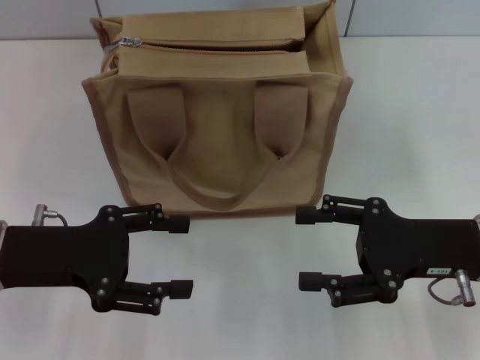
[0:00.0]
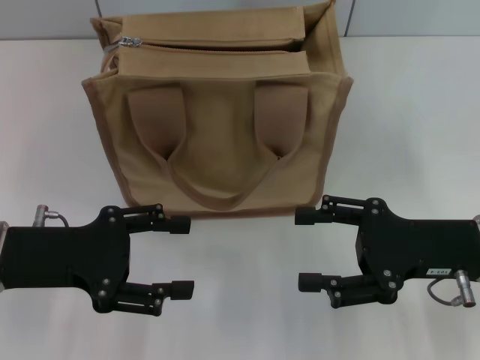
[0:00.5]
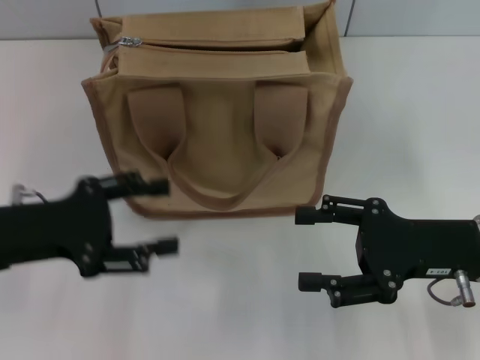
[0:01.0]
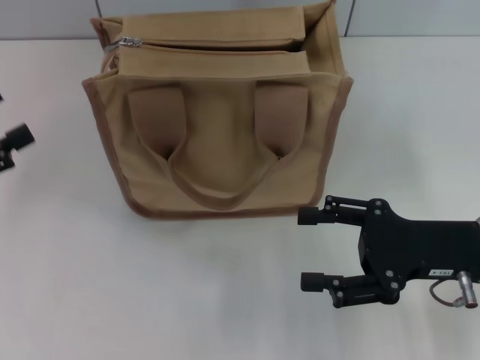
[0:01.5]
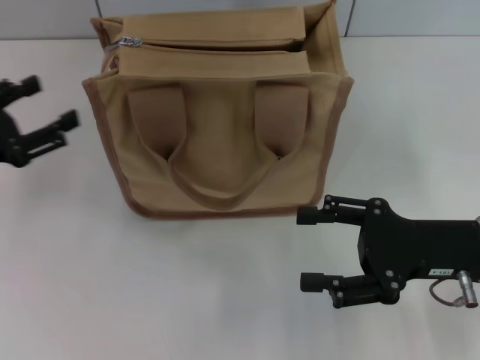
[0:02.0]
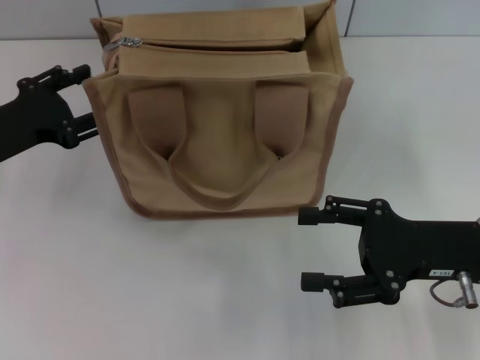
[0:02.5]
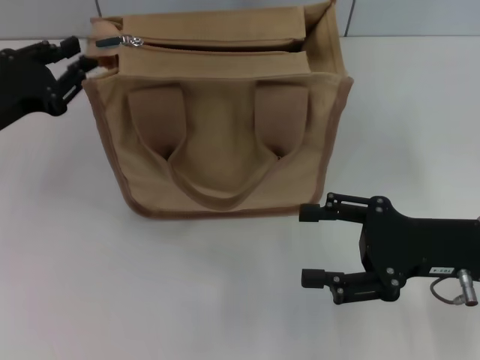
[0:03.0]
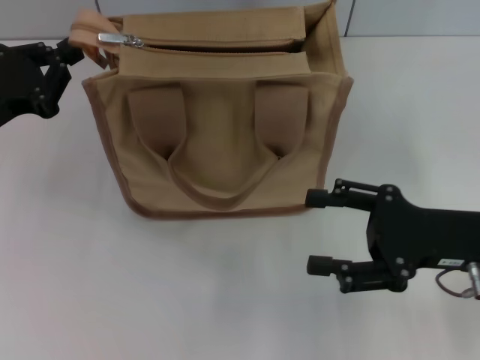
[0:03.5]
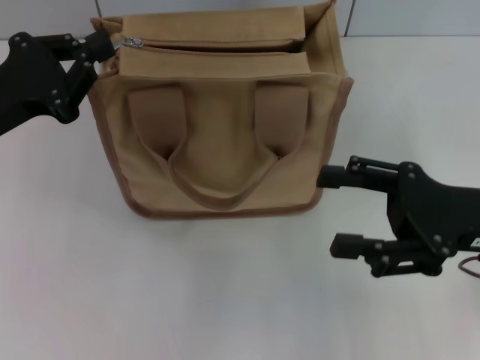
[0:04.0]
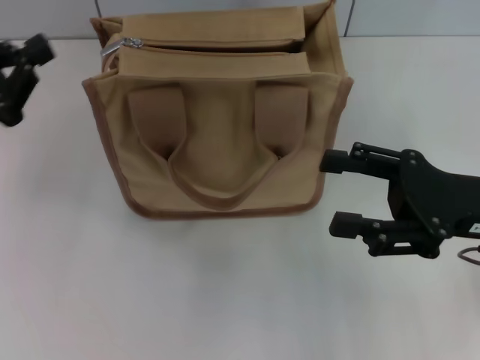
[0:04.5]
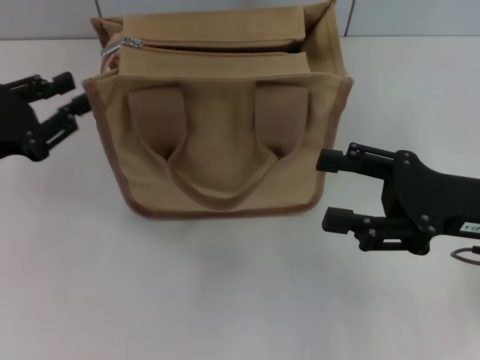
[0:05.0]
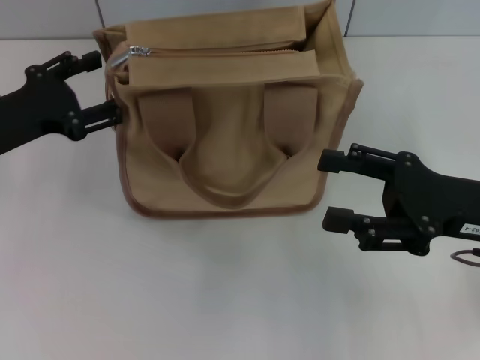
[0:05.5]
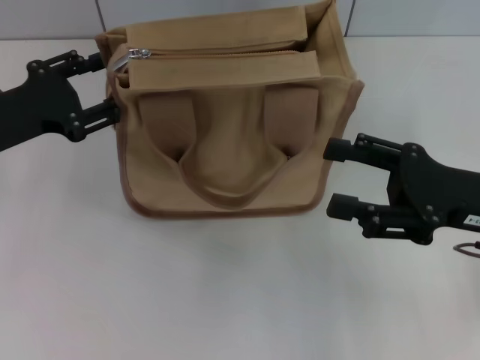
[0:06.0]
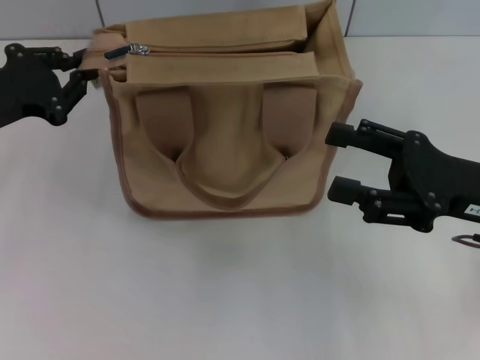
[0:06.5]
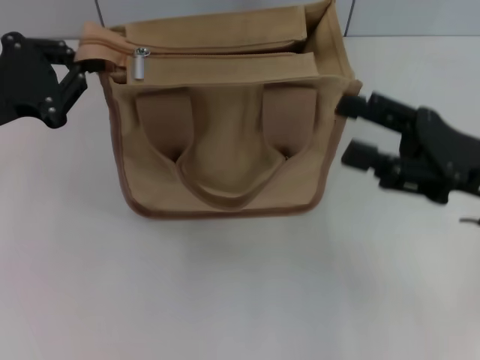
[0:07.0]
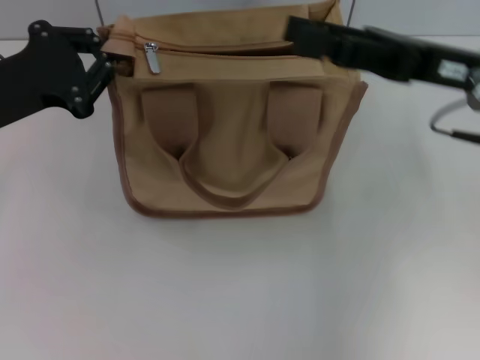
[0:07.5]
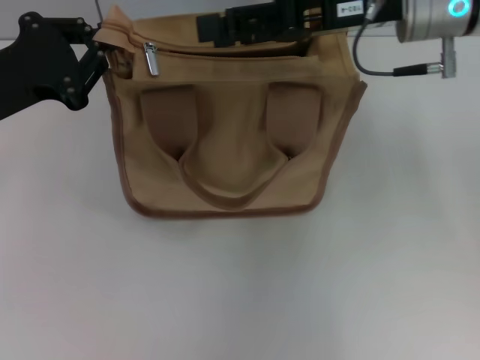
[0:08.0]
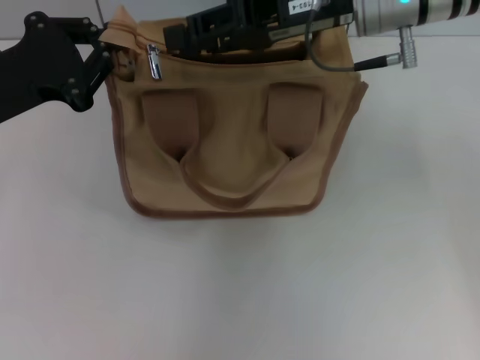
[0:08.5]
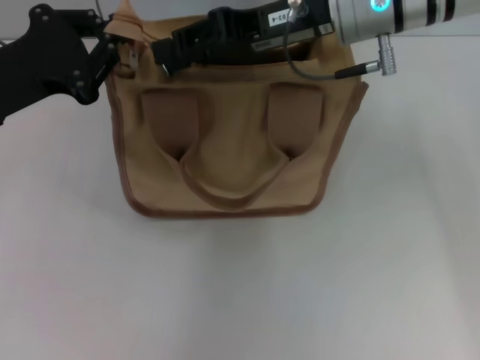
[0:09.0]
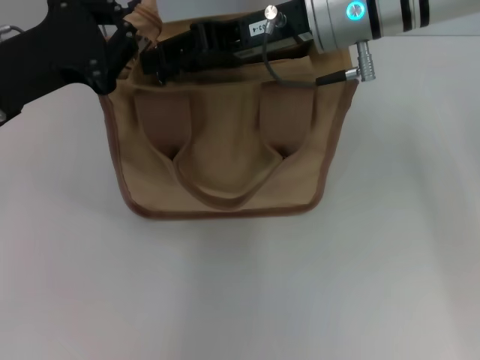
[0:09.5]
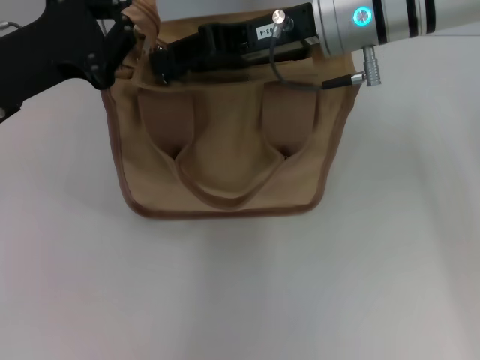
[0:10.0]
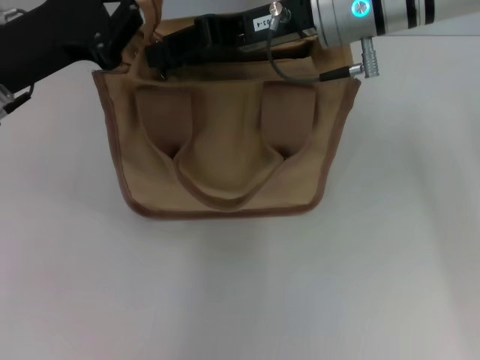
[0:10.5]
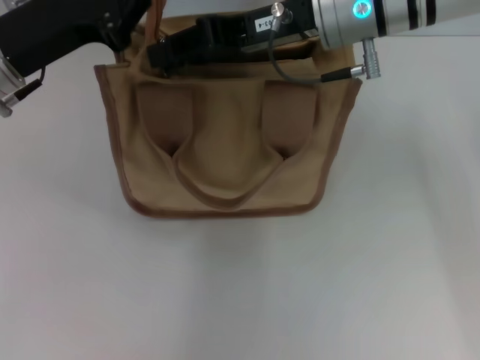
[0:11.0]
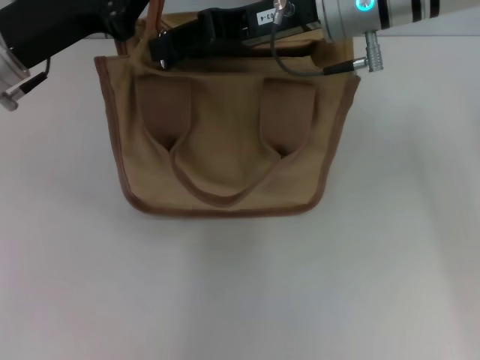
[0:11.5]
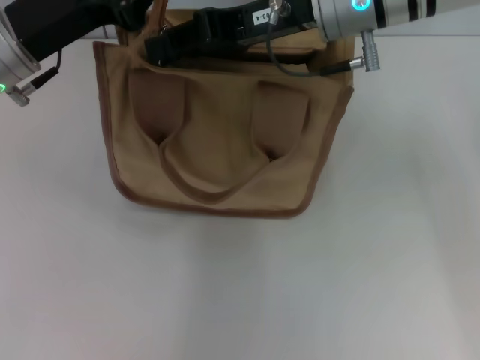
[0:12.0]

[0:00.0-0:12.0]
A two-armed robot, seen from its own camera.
0:00.0 to 0:02.0: The left gripper heads to the left, covering some 5 cm.
0:02.0 to 0:04.0: The left gripper ends up some 5 cm from where it was, and closes its fingers.
0:04.0 to 0:06.0: The left gripper opens its fingers.
0:06.0 to 0:08.0: The right gripper shifts some 20 cm forward, upward and to the left. The left gripper closes up.
0:08.0 to 0:10.0: The right gripper goes about 5 cm to the left, and closes up.
0:10.0 to 0:12.0: There are only small adjustments of the grippers.

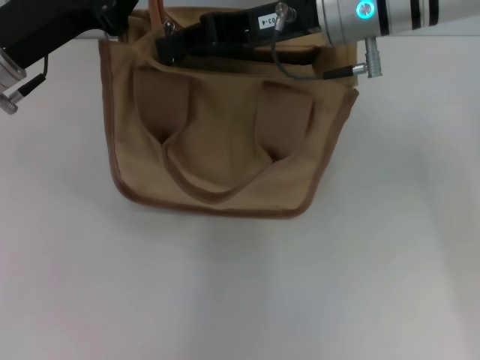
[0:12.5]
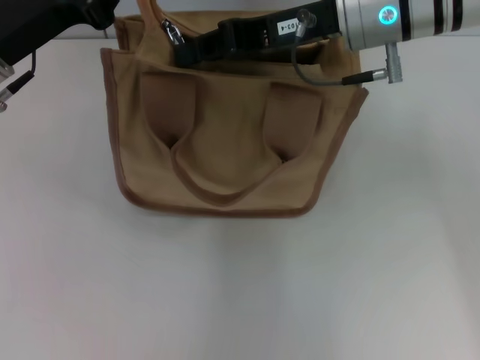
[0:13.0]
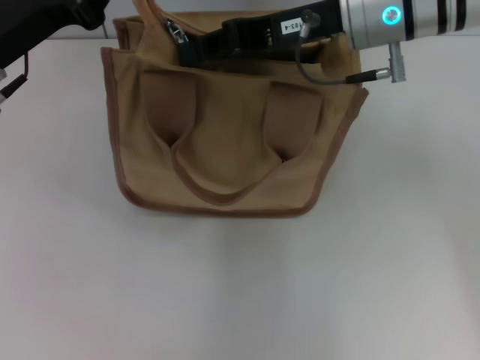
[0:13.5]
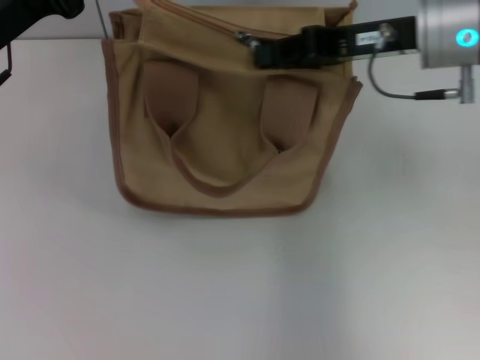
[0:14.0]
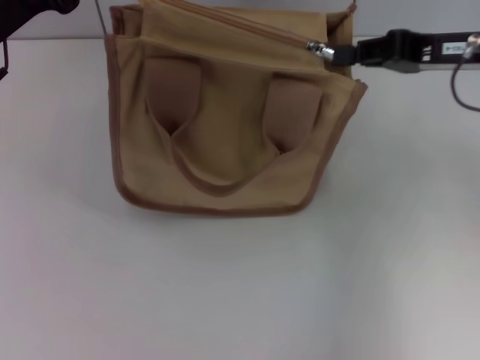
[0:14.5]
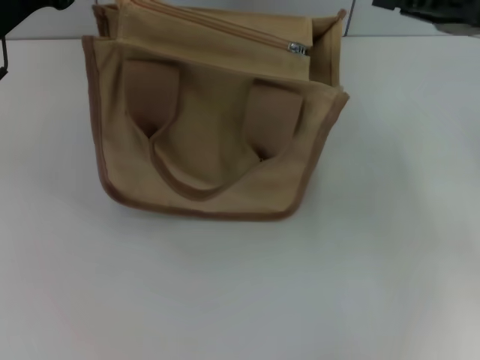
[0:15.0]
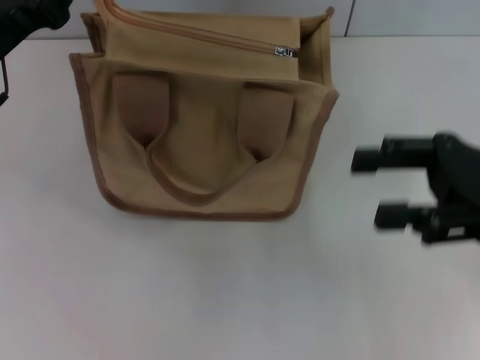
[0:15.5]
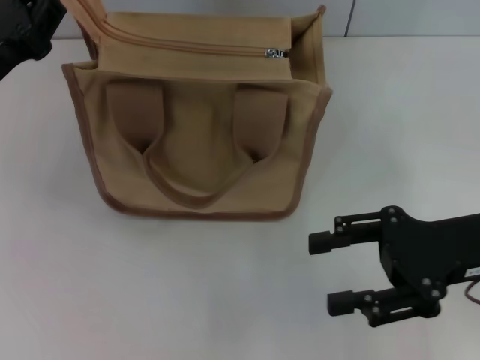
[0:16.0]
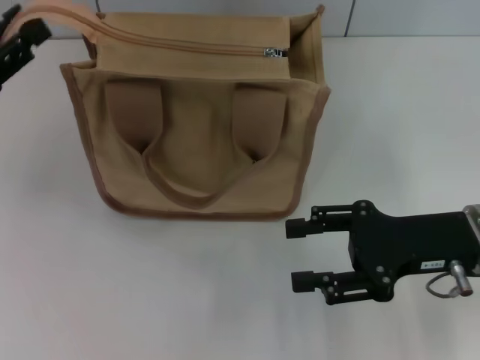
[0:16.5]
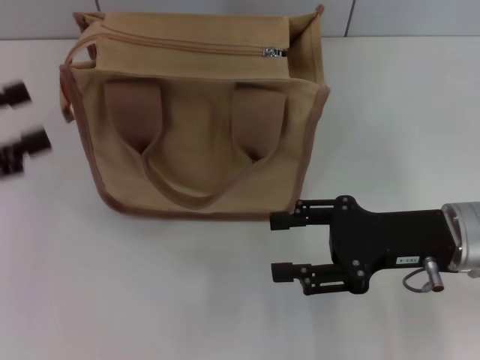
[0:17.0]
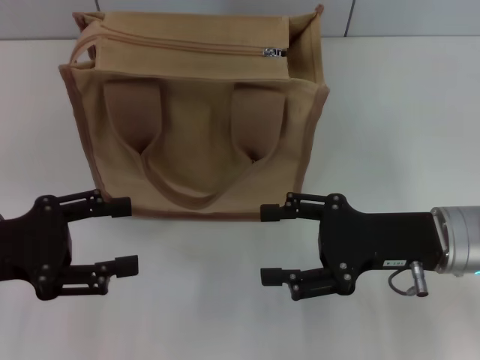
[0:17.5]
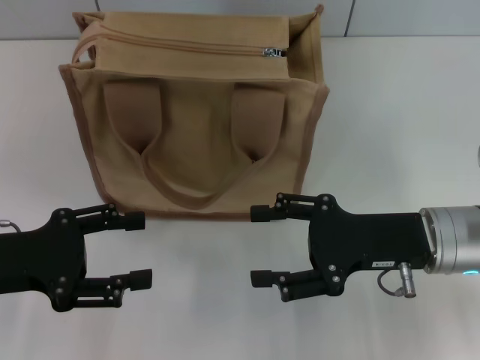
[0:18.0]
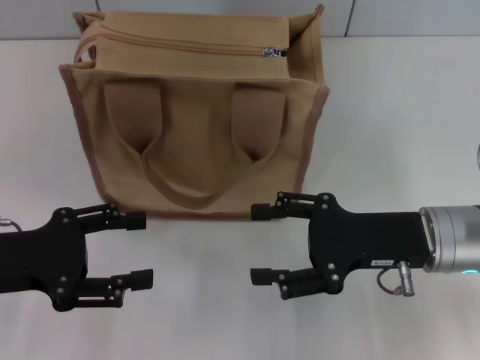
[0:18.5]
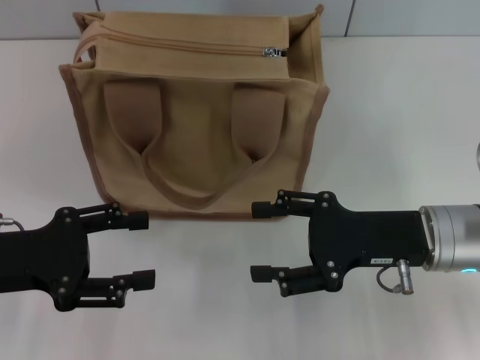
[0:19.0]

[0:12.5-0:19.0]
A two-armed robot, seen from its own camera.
Step, 0:12.5 to 0:14.5: Pull up the zipper with your right hand.
Step, 0:15.0 to 0:16.5: Grab the zipper with your left hand.
0:12.5 to 0:14.5: The right gripper shifts approximately 15 cm to the right.
0:14.5 to 0:17.0: The right gripper travels downward and backward by approximately 15 cm, and opens up. The left gripper moves to the left and backward, about 15 cm, and opens.
0:17.0 to 0:19.0: The left gripper goes some 10 cm to the right and downward.

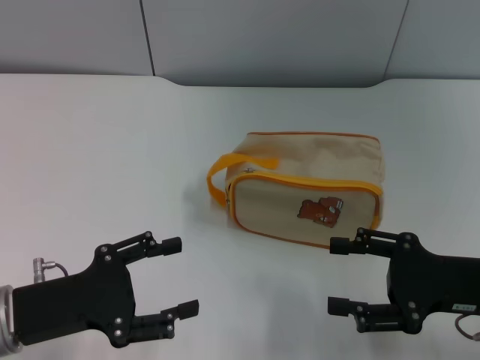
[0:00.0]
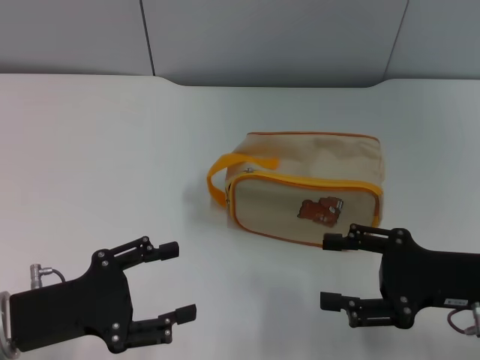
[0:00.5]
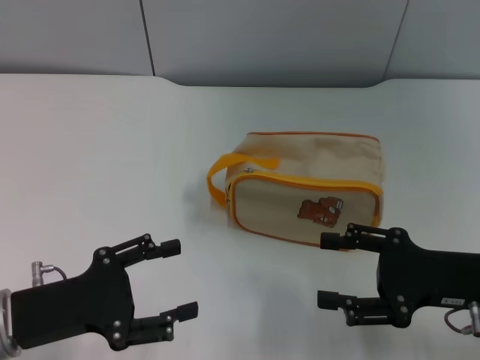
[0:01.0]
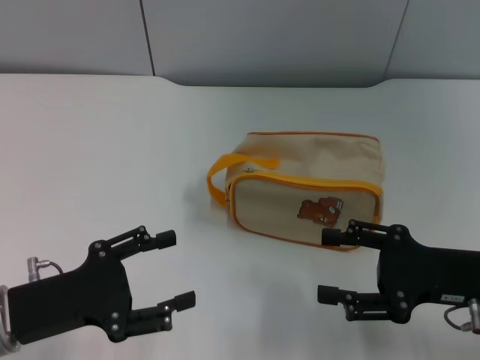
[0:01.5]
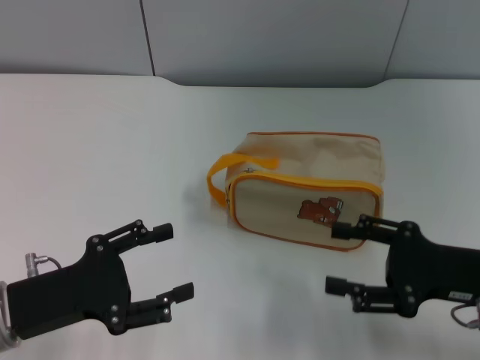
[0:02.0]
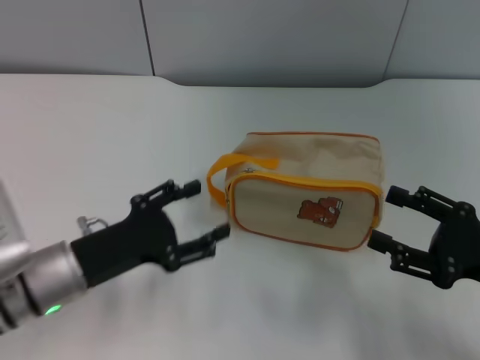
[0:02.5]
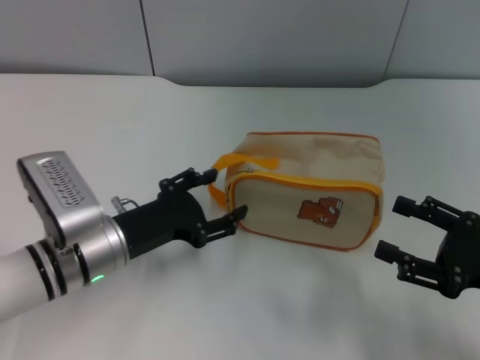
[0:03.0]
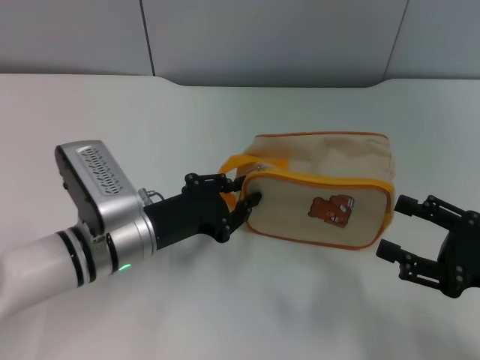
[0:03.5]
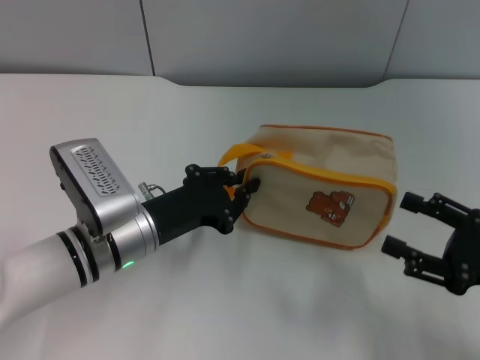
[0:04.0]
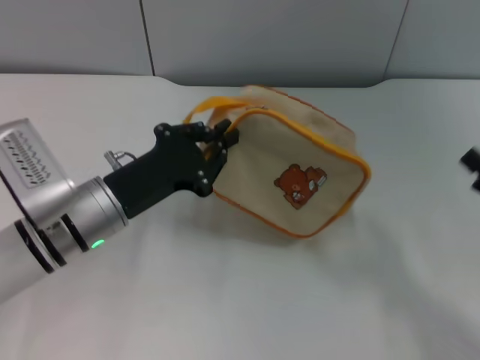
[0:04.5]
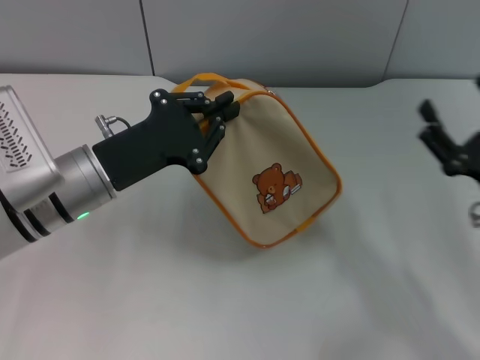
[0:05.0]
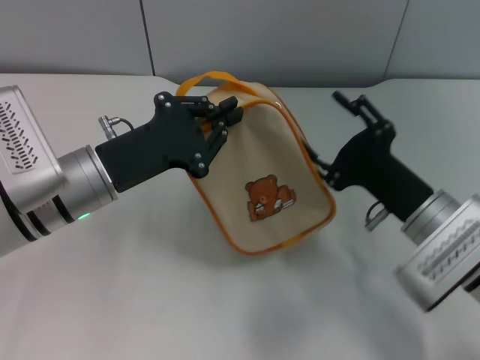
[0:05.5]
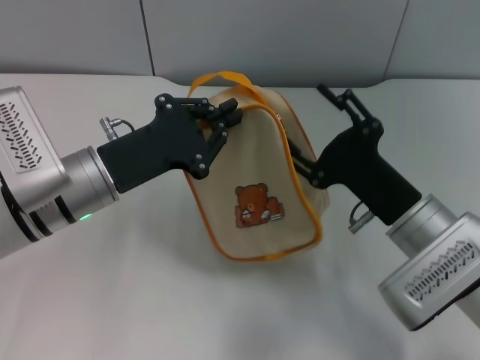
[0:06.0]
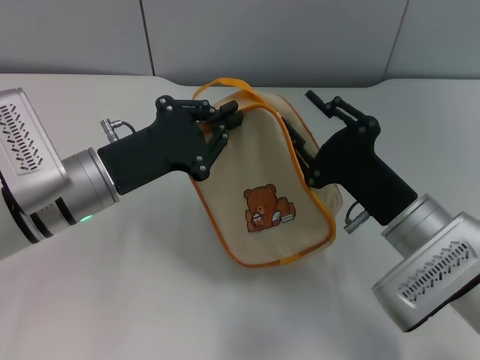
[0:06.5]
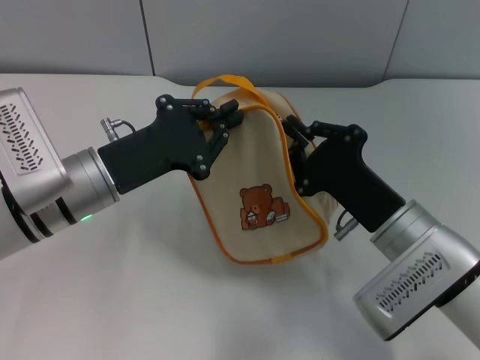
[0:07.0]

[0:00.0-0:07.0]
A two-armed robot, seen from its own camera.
Step, 0:00.0 to 0:05.0: Pick up the bag with left gripper.
0:00.0 to 0:02.0: The two grippers keep their place.
0:02.0 to 0:03.5: The left gripper travels to the right and forward by approximately 15 cm, and closes up.
0:03.5 to 0:05.0: The left gripper heads upward, covering about 5 cm, and closes.
0:05.0 to 0:07.0: The right gripper moves to the left, about 10 cm, and closes its fingers.
